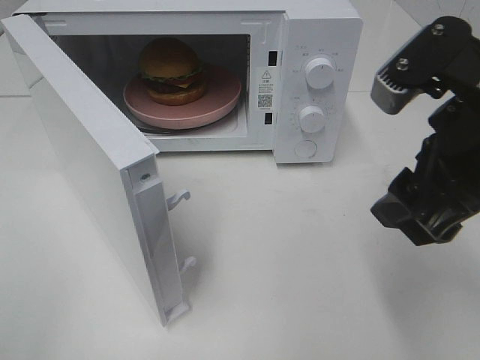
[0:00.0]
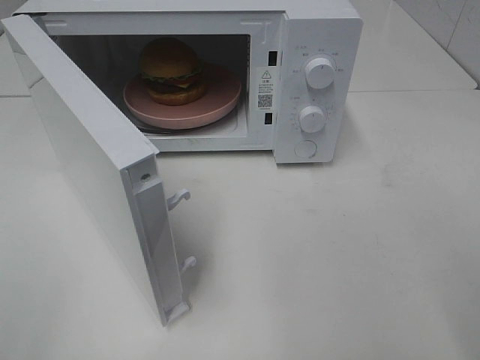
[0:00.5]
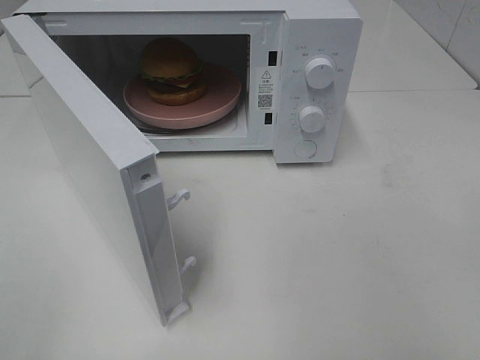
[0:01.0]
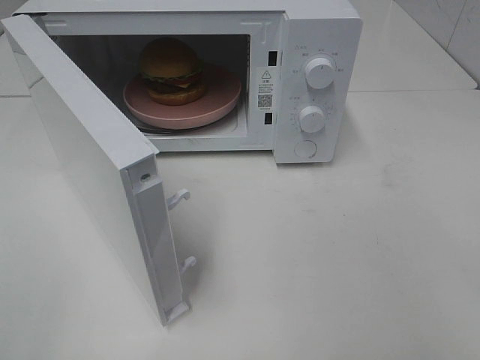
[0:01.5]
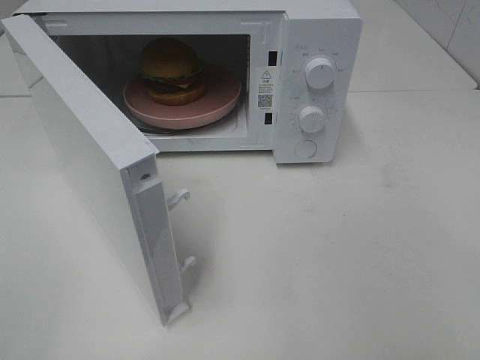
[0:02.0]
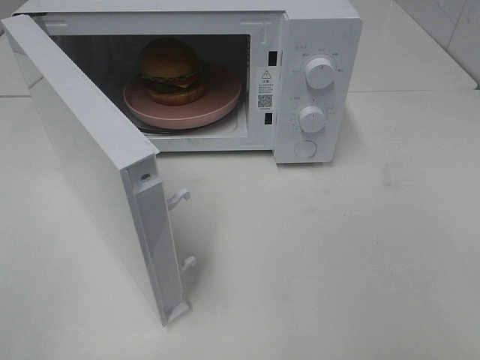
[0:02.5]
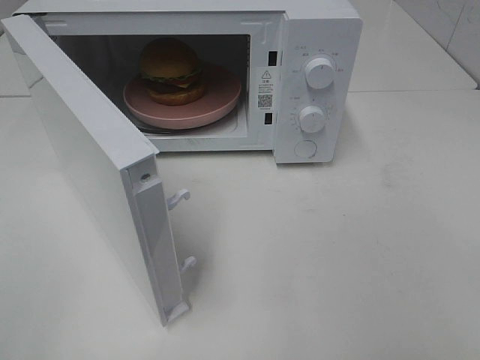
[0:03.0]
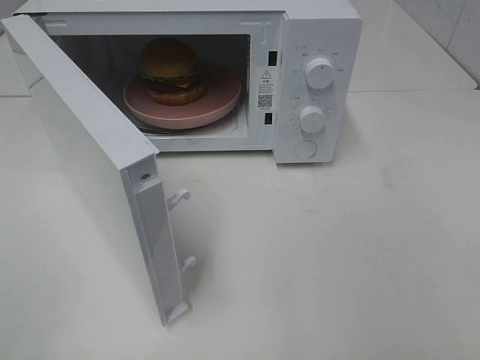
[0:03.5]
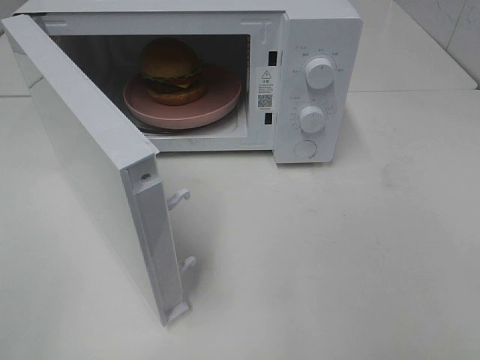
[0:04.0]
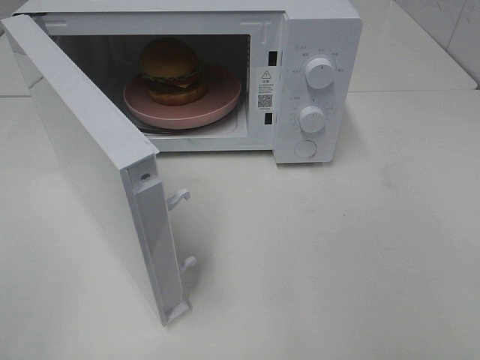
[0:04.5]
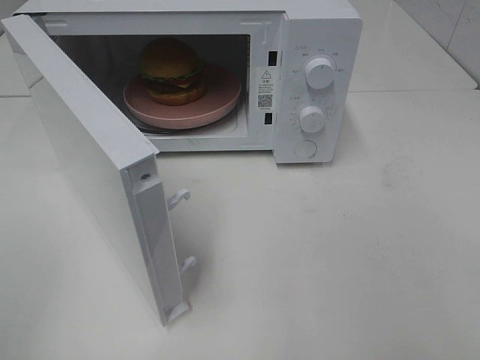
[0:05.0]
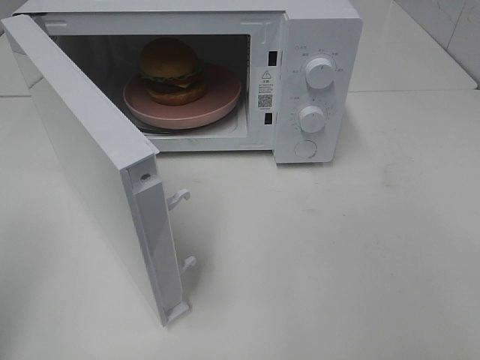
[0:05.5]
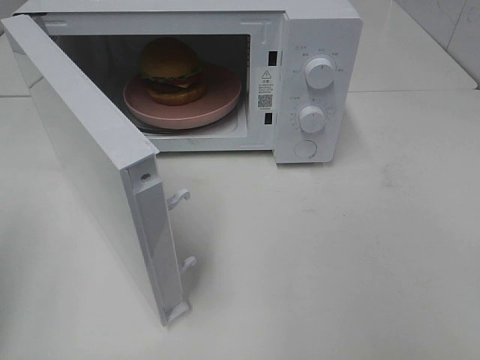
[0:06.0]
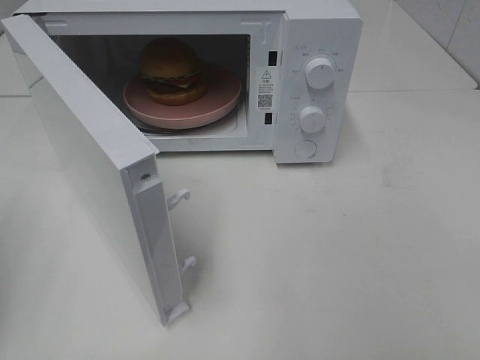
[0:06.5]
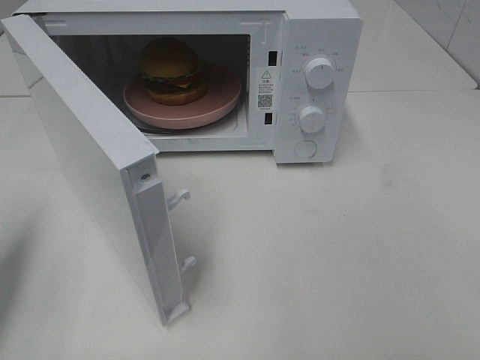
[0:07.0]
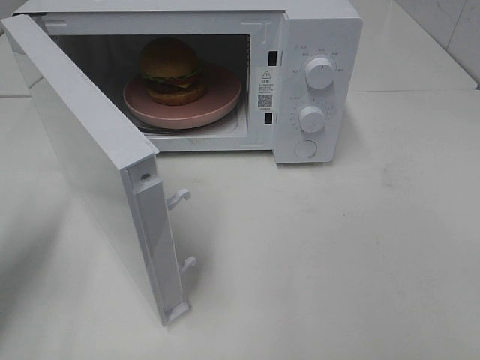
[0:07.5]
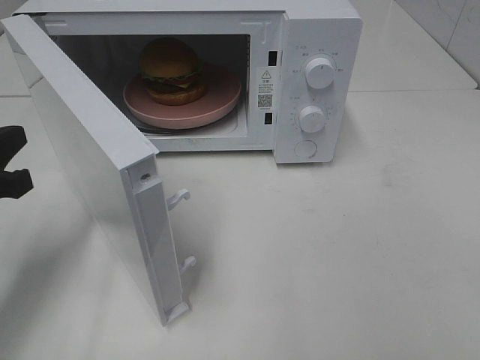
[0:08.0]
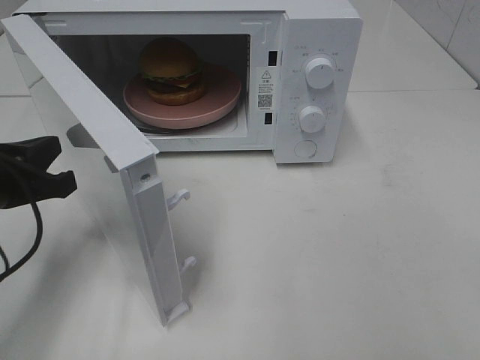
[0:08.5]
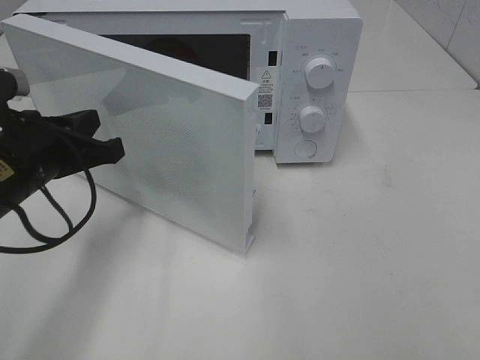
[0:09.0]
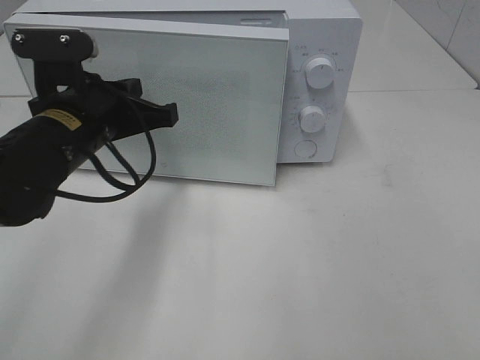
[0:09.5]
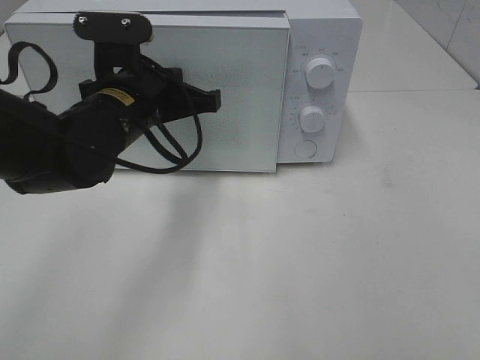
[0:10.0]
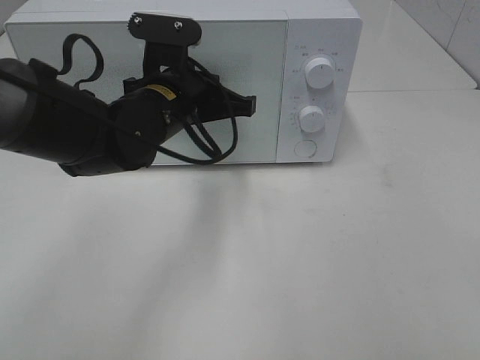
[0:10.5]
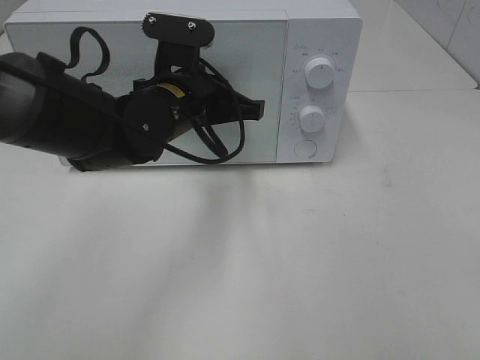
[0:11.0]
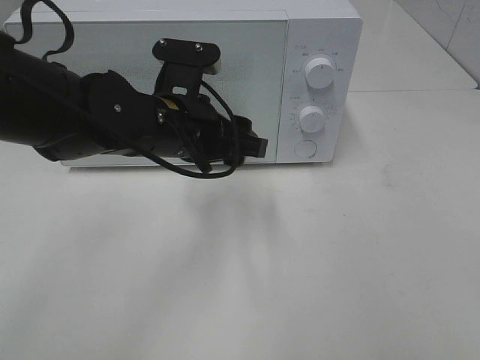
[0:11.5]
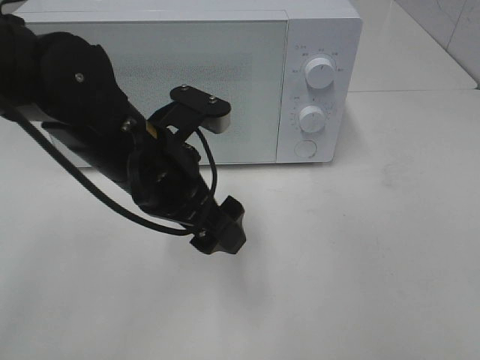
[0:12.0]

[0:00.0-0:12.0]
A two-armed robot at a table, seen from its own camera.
Task of the whole recording: Heat the burger.
Step, 0:00.0 to 0:11.0: Left hand: close the microwave door.
0:00.0 to 0:02.0: The right gripper travels backward and to the right by some 20 cm.
0:06.0 to 0:08.0: The left gripper heads forward, downward and to the right, covering some 15 cm.
0:08.0 to 0:10.0: The left gripper travels to the right and forward by some 20 cm.
0:10.0 to 0:12.0: The left gripper moves backward, roughly 5 cm, and opens up.

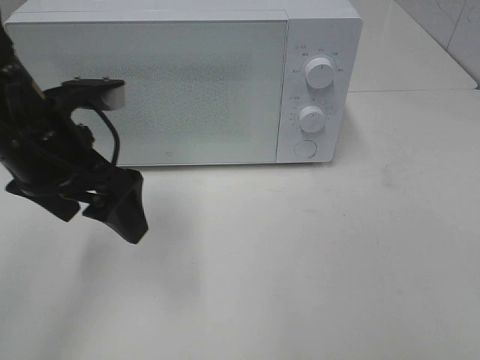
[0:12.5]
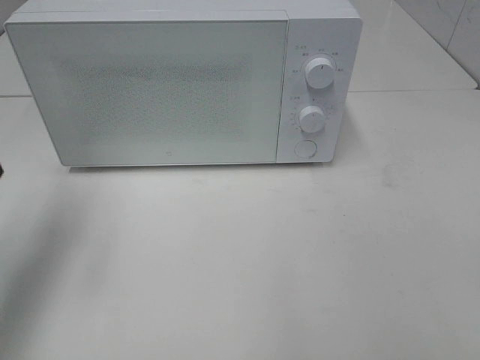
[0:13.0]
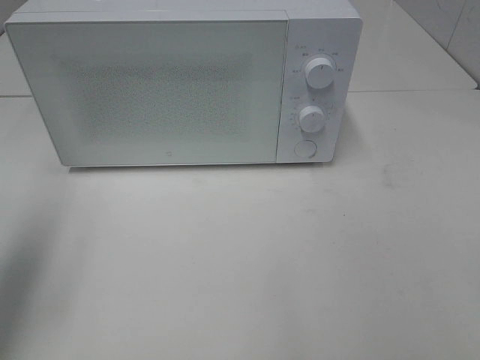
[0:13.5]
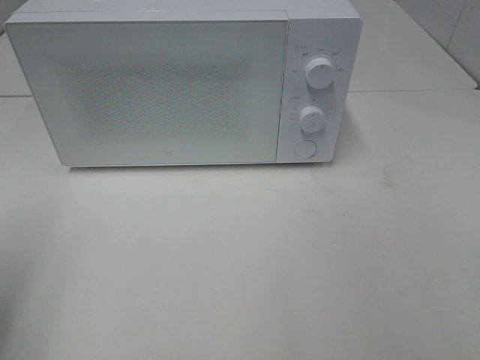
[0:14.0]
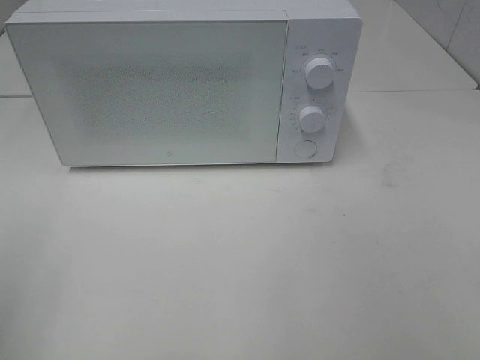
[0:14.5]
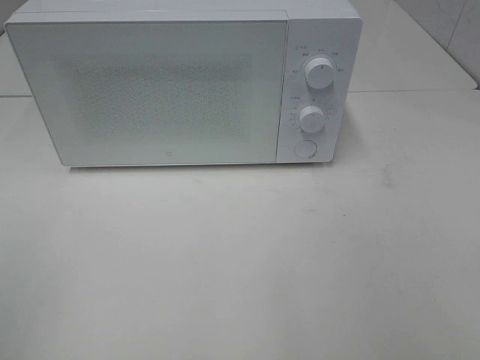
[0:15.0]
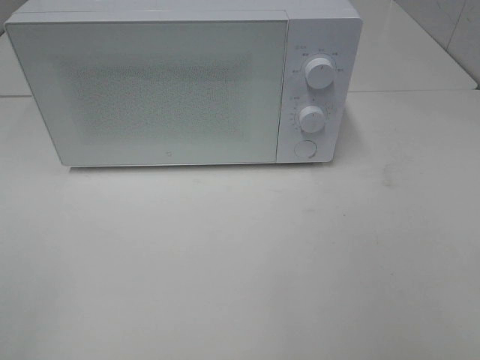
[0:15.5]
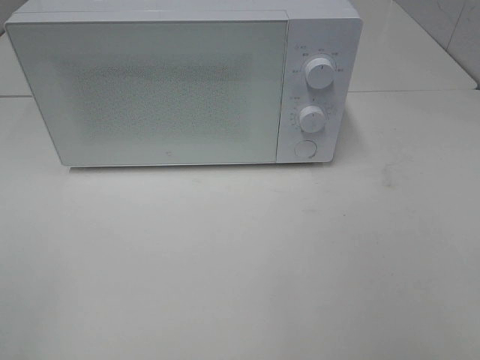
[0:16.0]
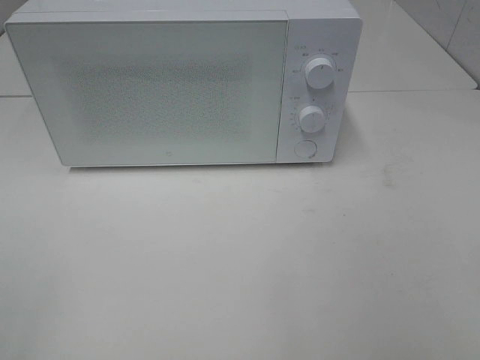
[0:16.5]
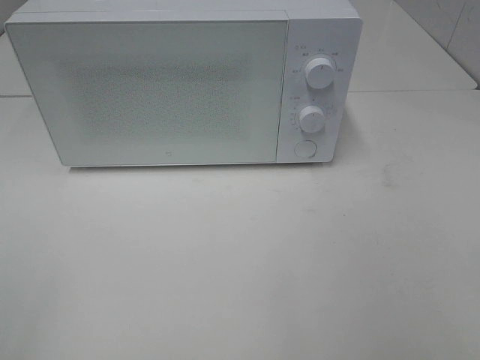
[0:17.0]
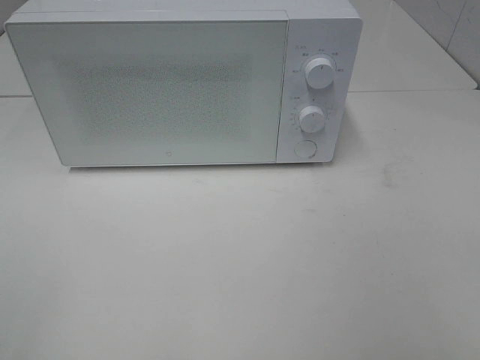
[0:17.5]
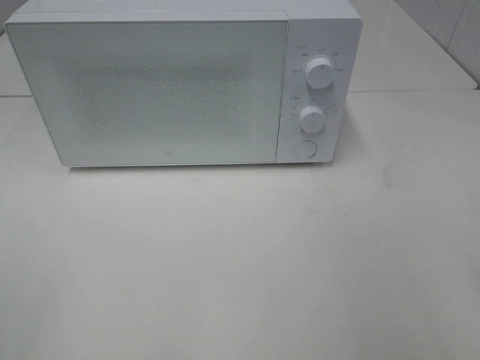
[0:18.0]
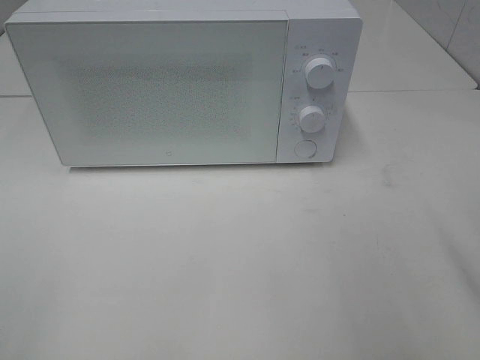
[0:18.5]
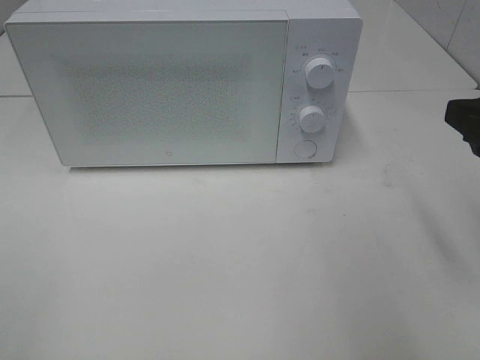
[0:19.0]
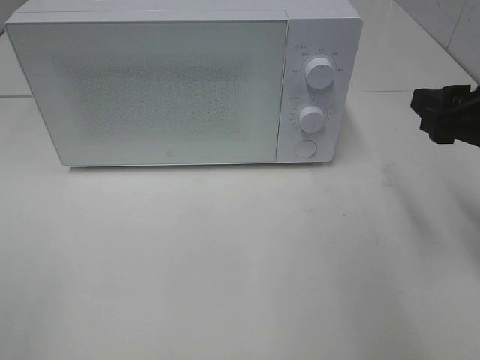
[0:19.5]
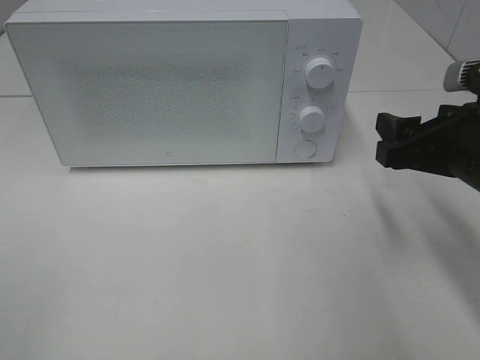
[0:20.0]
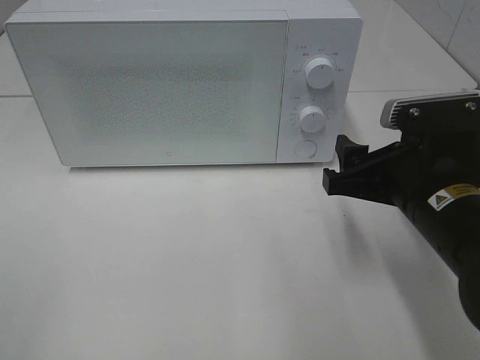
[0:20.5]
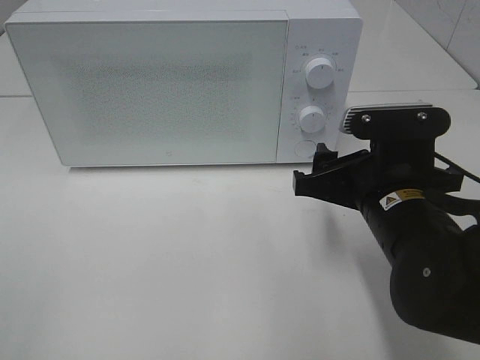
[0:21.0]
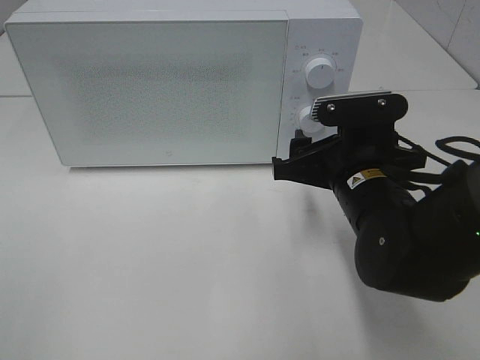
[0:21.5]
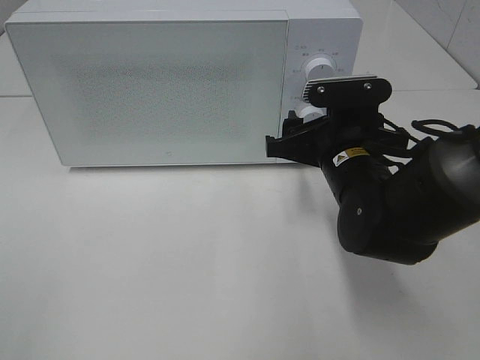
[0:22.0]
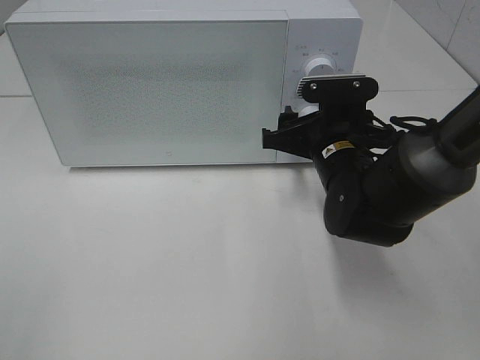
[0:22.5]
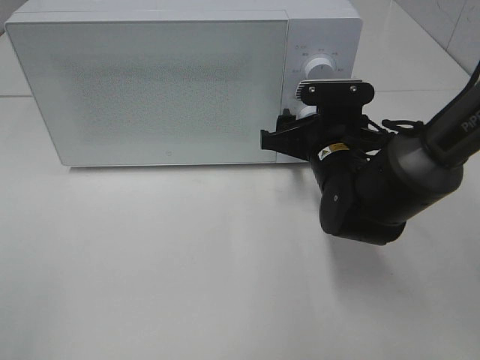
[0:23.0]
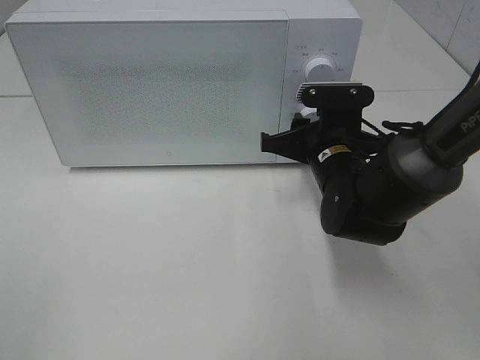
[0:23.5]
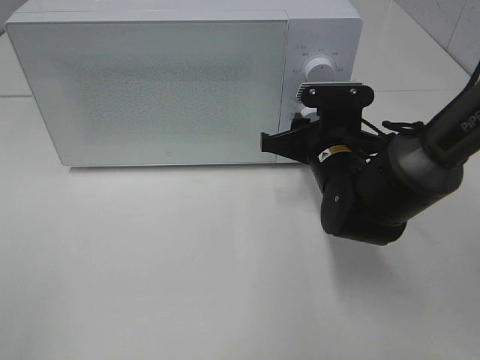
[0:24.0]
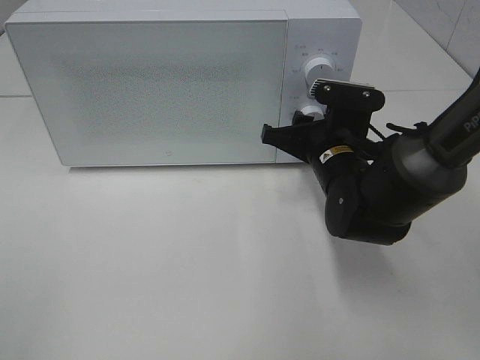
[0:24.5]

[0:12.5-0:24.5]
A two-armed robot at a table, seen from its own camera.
Task of the whole recording: Heat the burger.
0:12.5 to 0:14.5: The left gripper moves backward and to the left, approximately 25 cm.
0:18.5 to 0:20.5: The right gripper travels downward, to the left and forward by approximately 15 cm.
0:20.5 to 0:22.5: The right gripper moves forward and to the left, approximately 10 cm.
0:22.5 to 0:24.5: The right gripper closes.

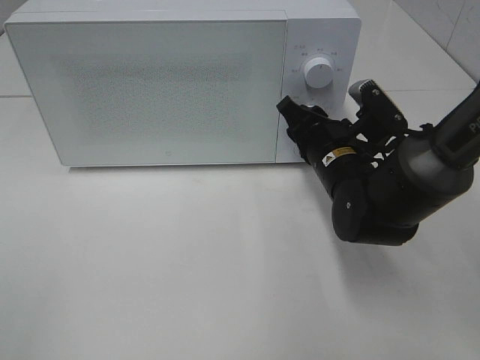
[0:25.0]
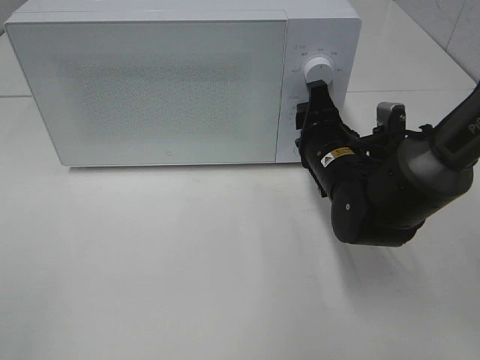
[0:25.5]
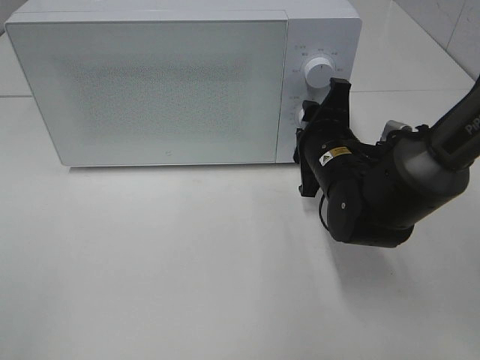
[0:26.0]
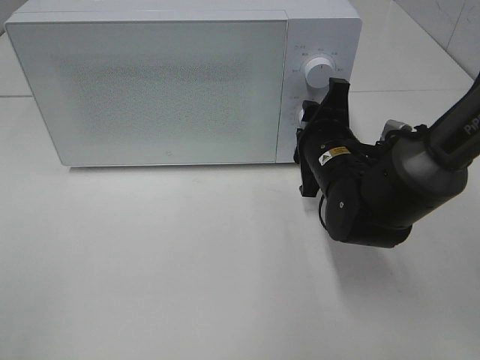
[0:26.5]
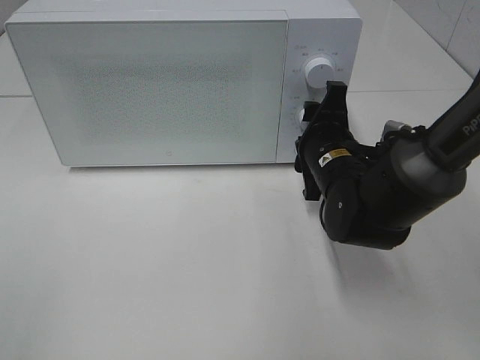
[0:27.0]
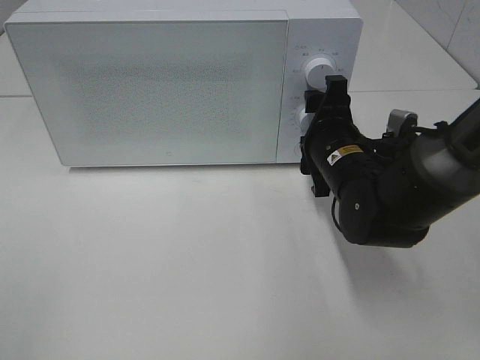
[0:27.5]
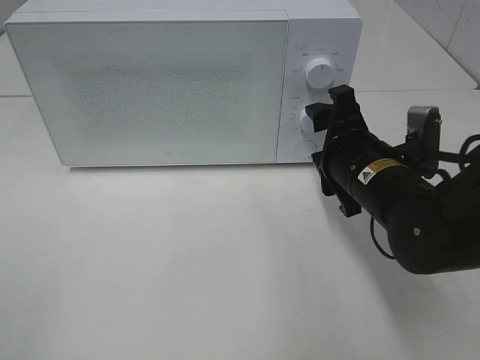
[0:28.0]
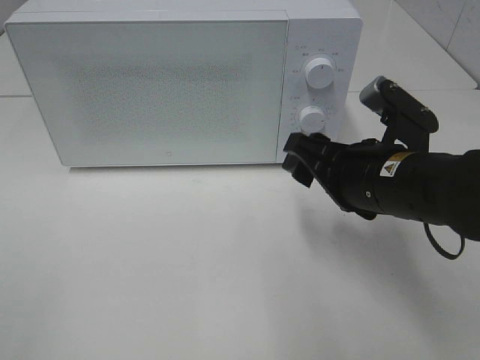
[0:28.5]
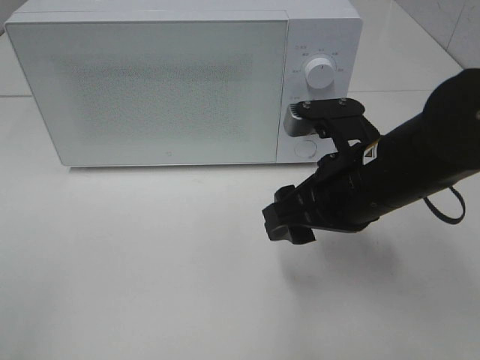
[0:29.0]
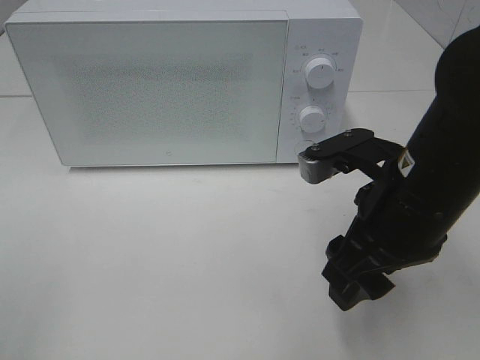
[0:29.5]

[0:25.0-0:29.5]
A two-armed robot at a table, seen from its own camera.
Task of the whole recording: Heat the burger.
Step, 0:25.0 to 0:27.0: Right hand: twist timer button.
0:27.0 to 0:29.5: The right gripper moves backward and upward, about 15 cm.
